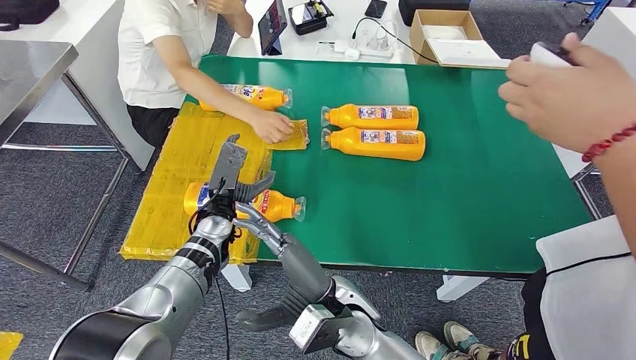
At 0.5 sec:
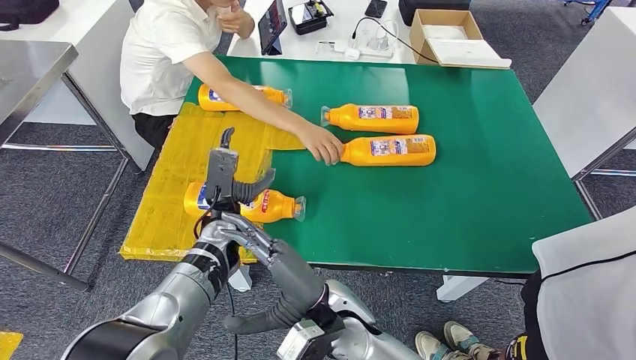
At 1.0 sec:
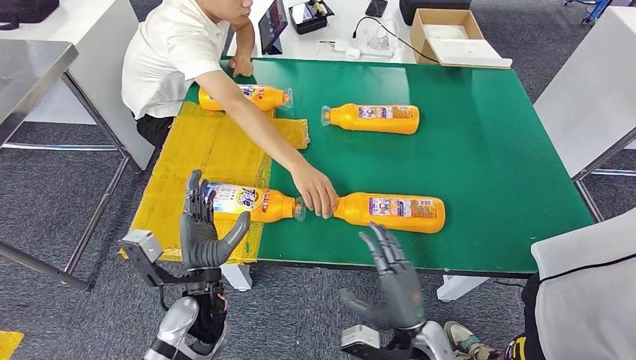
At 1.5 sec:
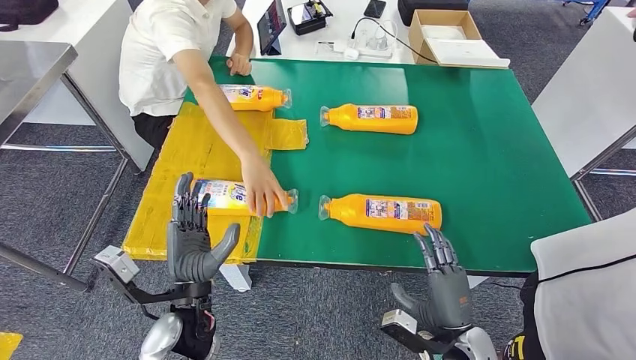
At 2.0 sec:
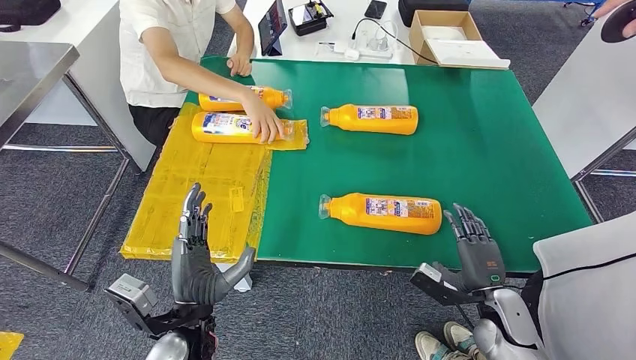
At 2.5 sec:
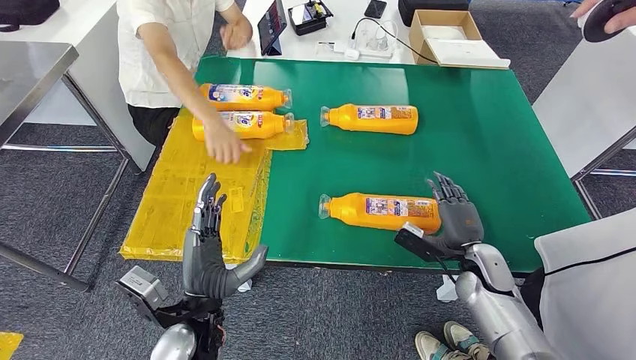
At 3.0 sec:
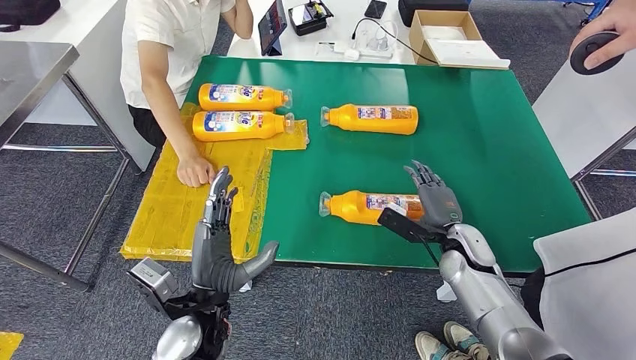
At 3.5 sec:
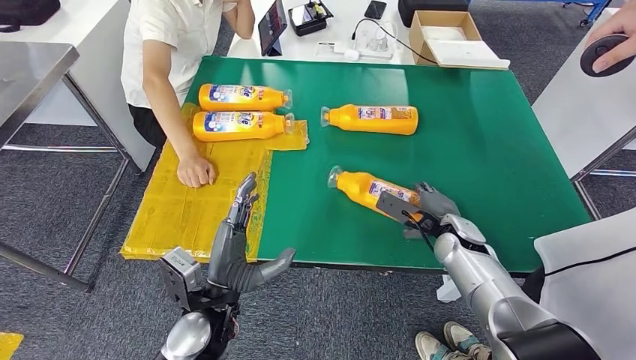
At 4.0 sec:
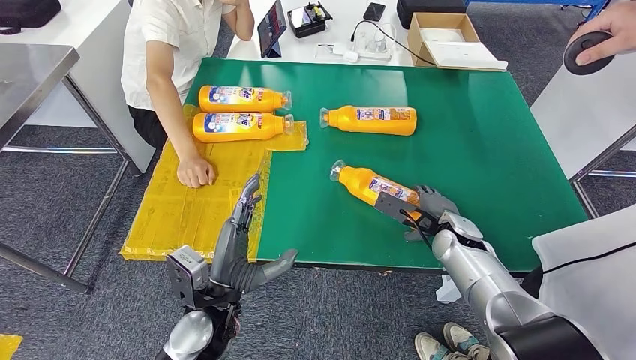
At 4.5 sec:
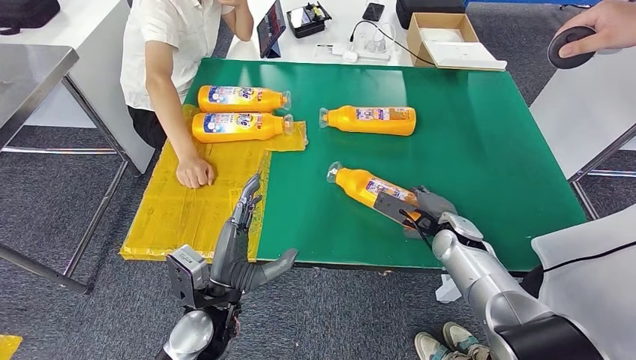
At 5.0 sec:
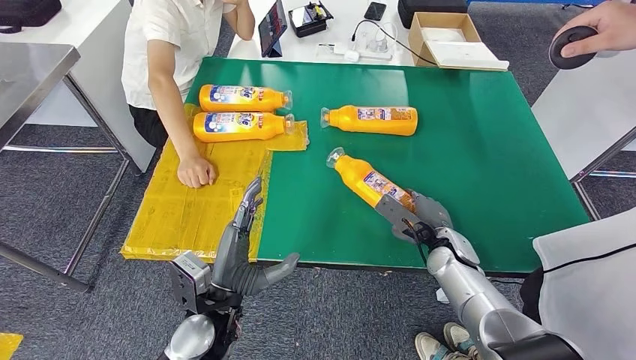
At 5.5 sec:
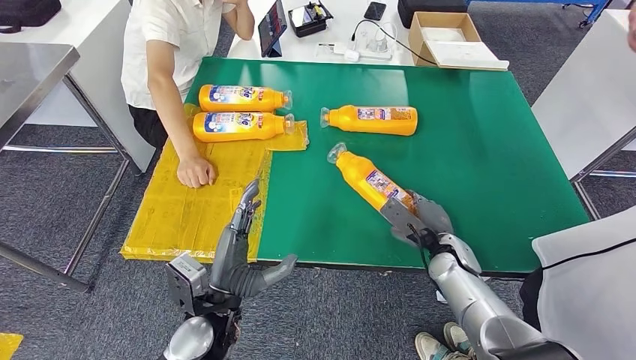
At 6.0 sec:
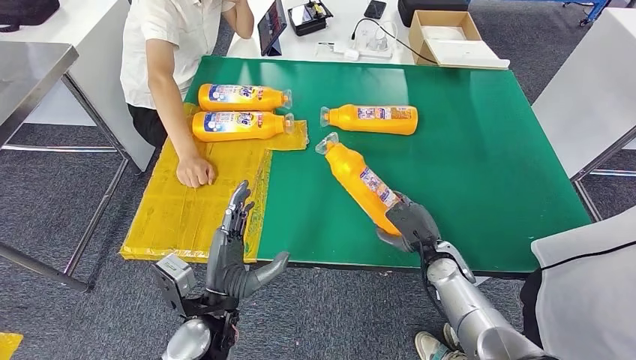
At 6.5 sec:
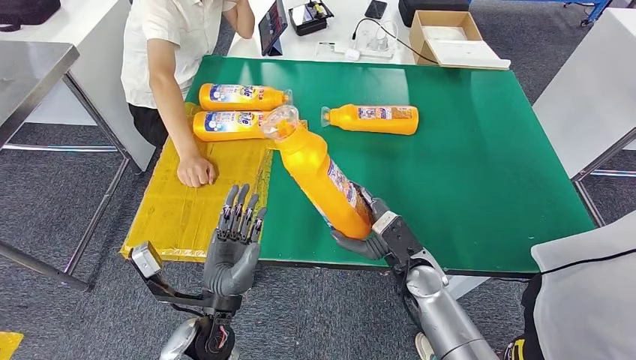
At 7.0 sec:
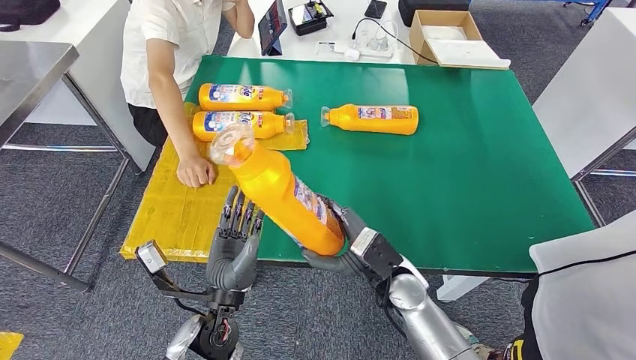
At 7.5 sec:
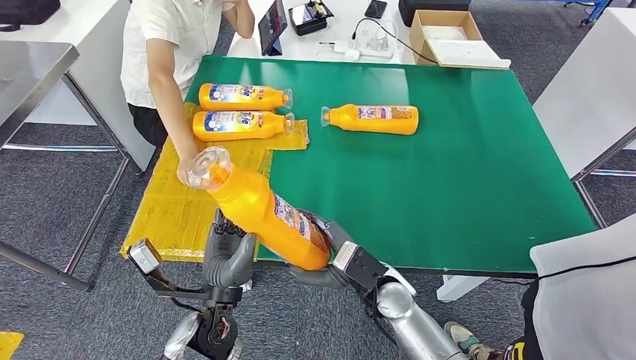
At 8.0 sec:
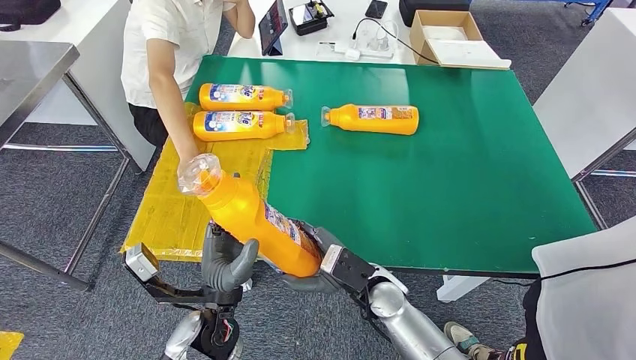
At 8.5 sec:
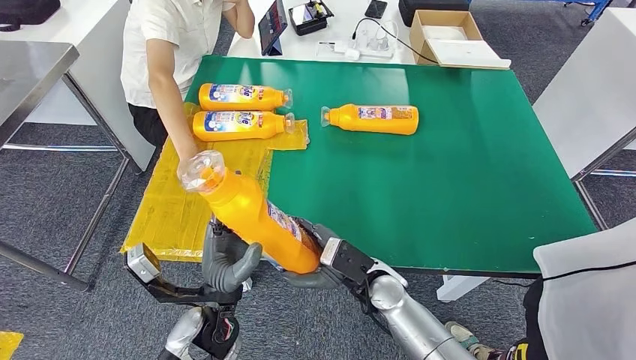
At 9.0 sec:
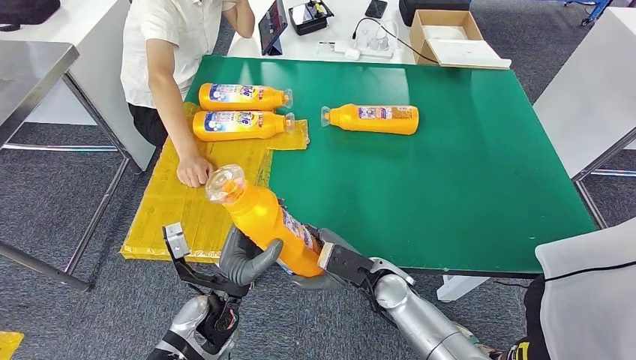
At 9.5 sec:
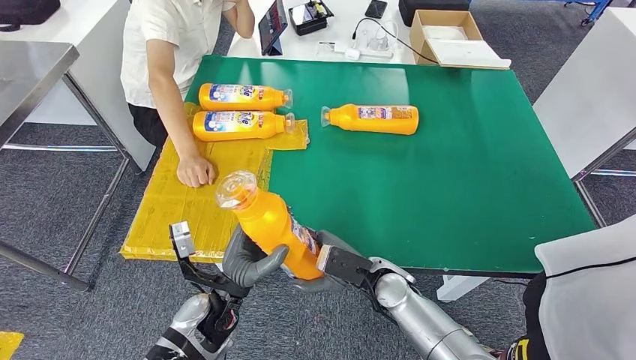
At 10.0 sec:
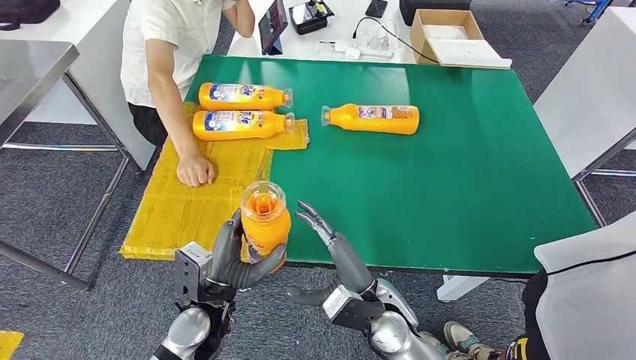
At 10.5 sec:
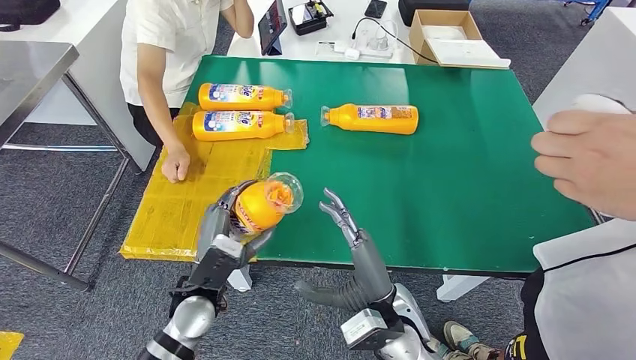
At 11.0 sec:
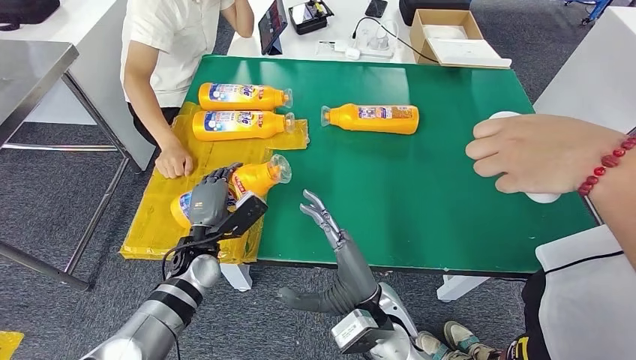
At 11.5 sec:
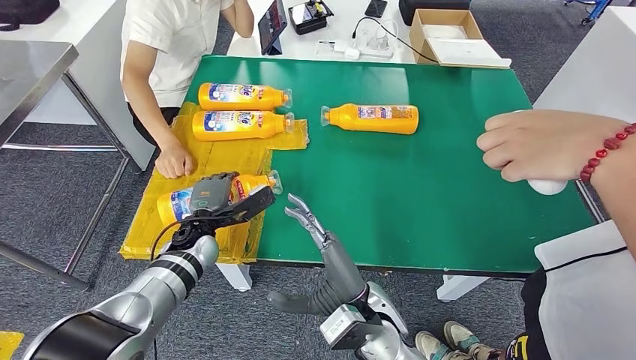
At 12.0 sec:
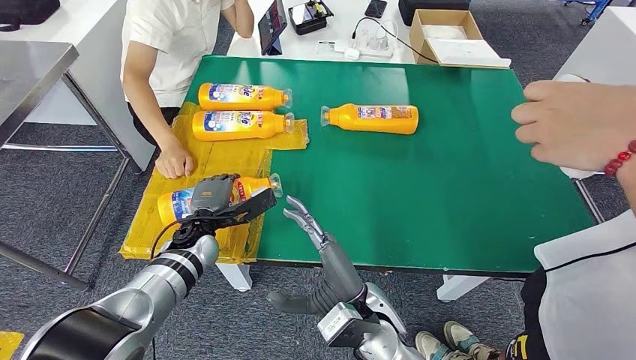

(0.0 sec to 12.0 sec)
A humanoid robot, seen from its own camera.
Step, 1.0 sec - 6.0 sec: Pick up the bottle from the table.
4.0 sec - 6.0 sec: The right hand shifts by roughly 5 cm.
6.0 sec - 8.0 sec: The right hand goes roughly 15 cm to the left and backward.

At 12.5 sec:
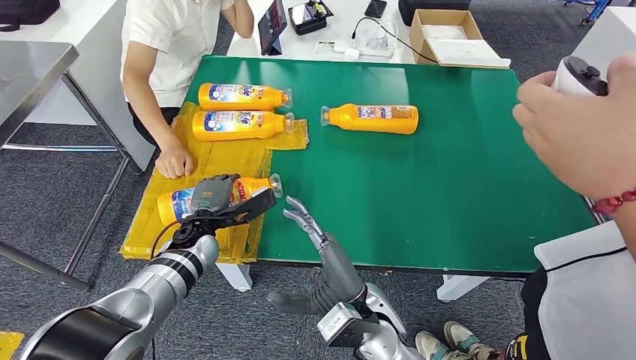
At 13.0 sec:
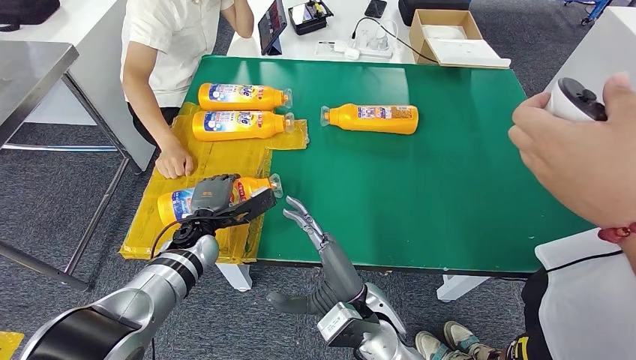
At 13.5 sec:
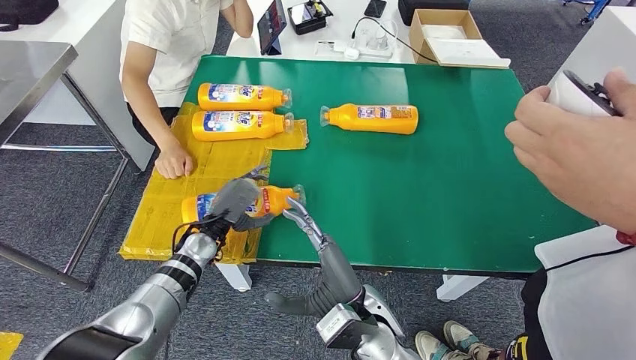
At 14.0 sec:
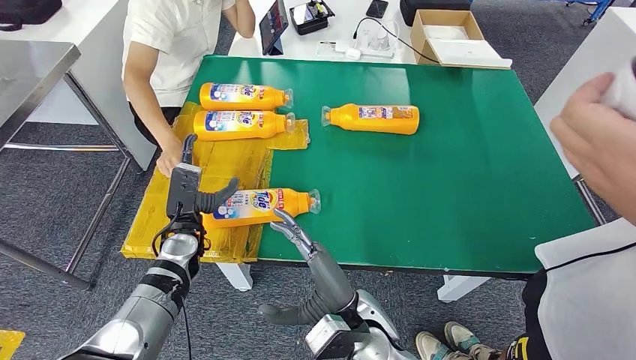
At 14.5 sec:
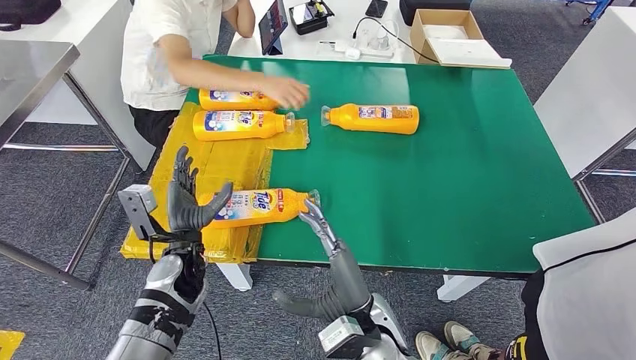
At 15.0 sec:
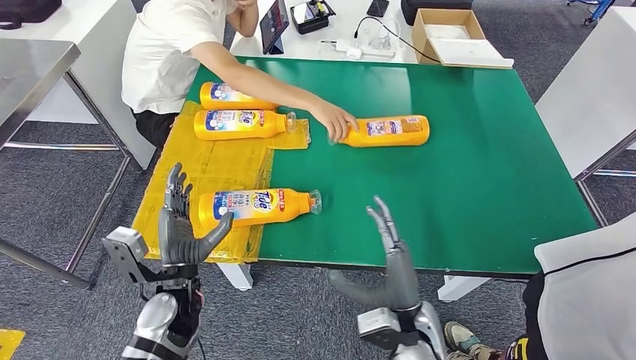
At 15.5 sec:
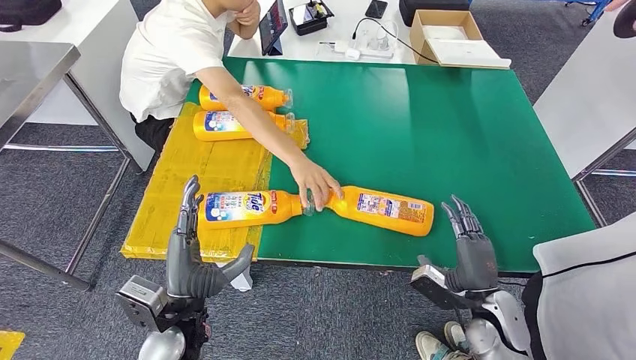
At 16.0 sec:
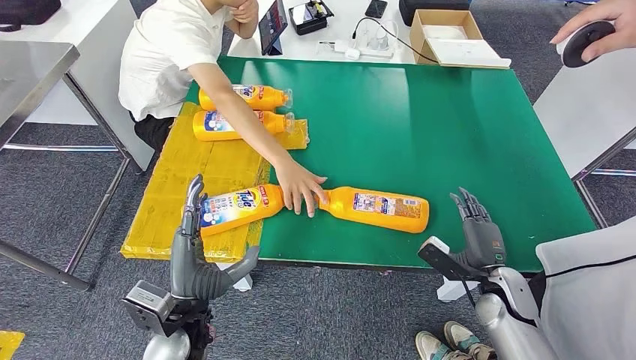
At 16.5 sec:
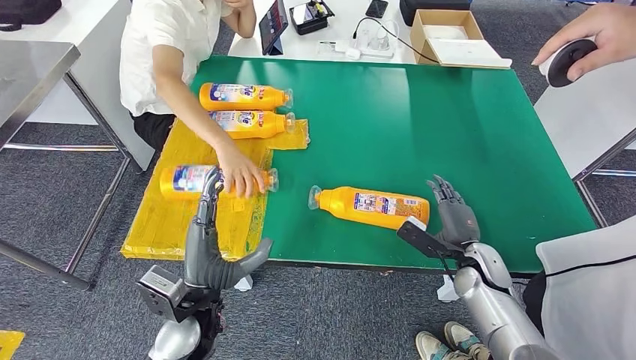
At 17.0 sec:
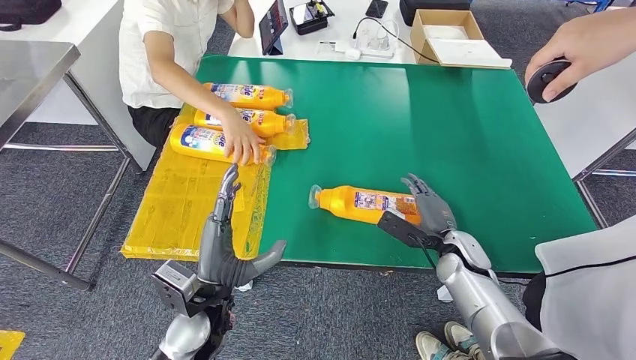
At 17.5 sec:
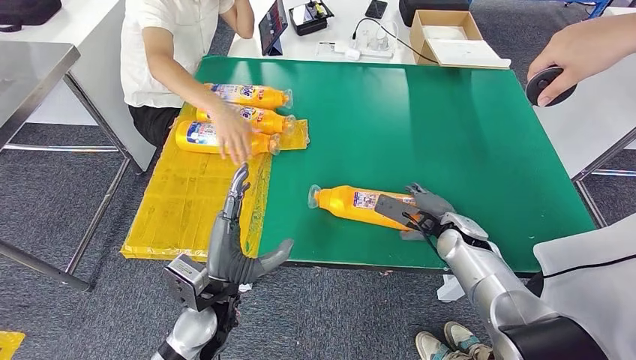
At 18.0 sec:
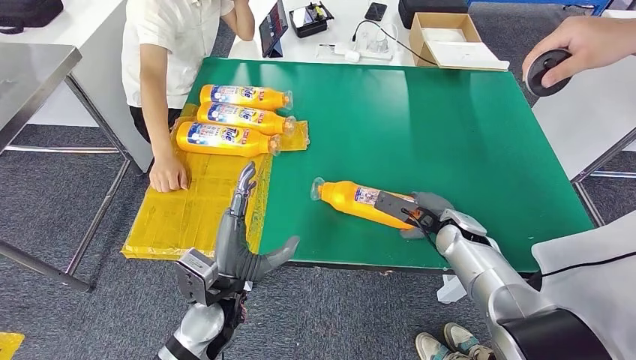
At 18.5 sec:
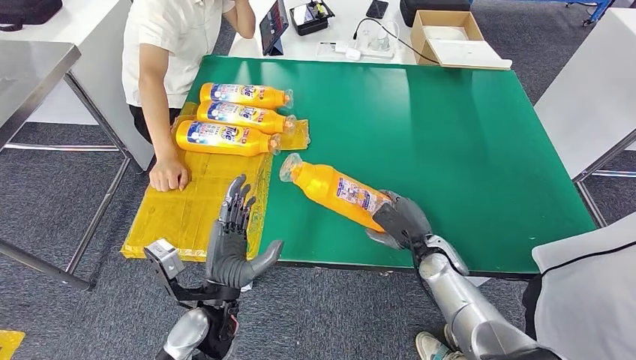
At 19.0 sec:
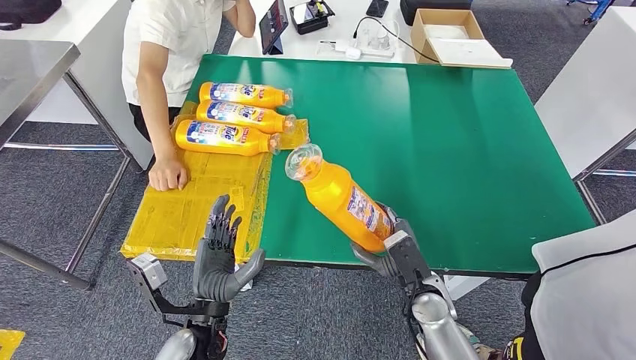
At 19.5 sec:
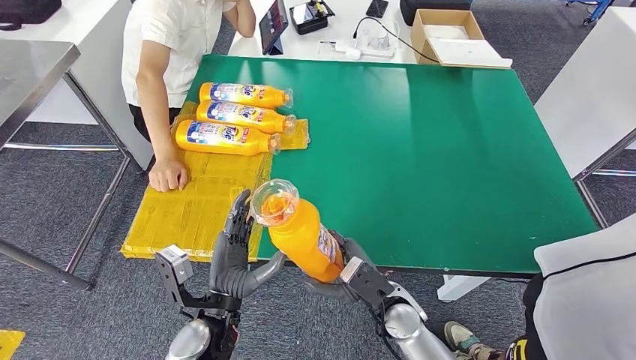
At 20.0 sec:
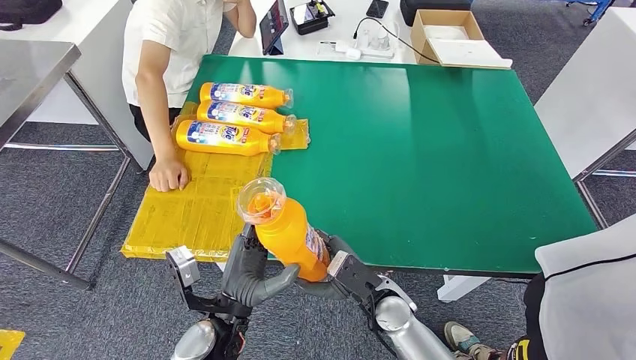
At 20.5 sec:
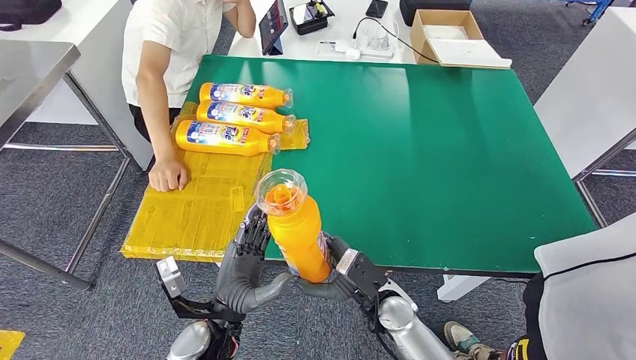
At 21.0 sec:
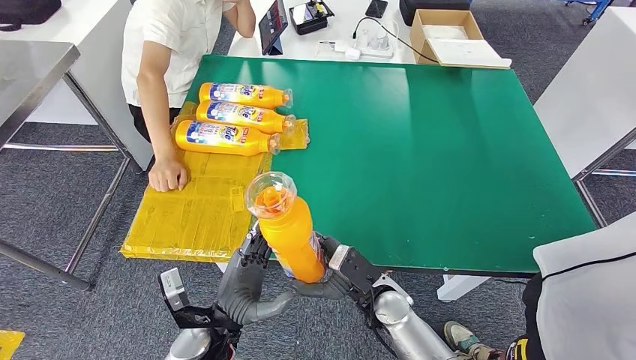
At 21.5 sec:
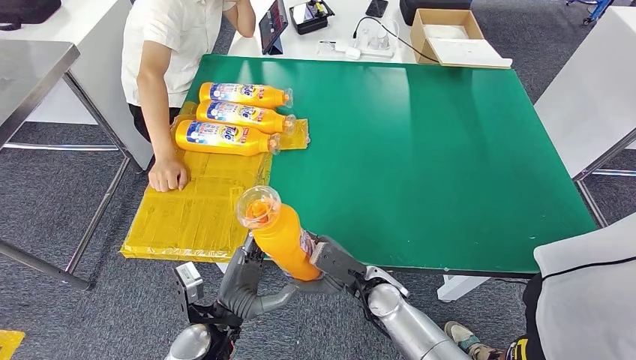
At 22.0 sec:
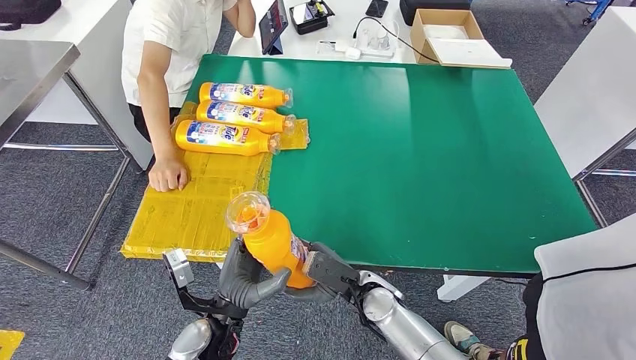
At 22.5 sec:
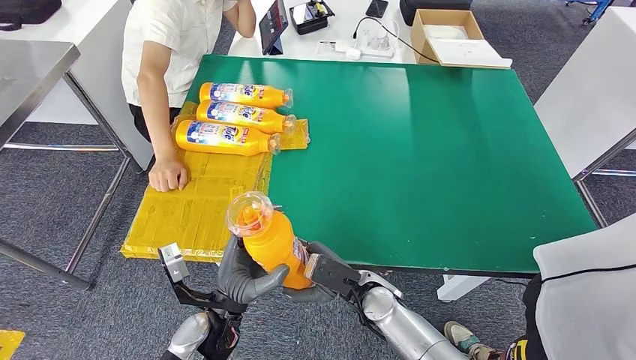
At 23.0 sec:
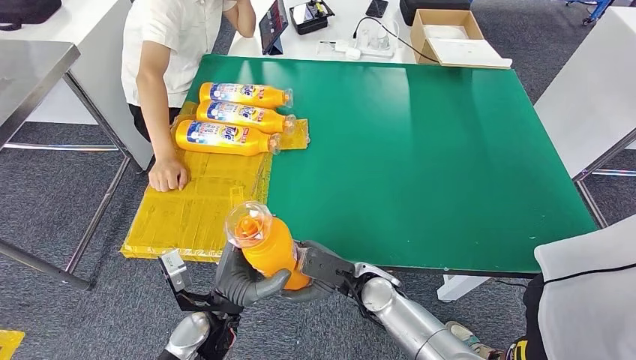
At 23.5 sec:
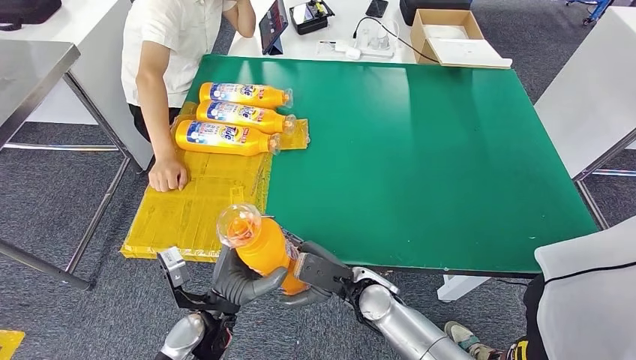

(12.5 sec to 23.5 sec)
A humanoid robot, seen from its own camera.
Step, 15.0 sec - 18.5 sec: Pick up the bottle from the table.
20.0 sec - 21.5 sec: The hands move only a little.
21.5 sec - 23.5 sec: The hands move only a little.
